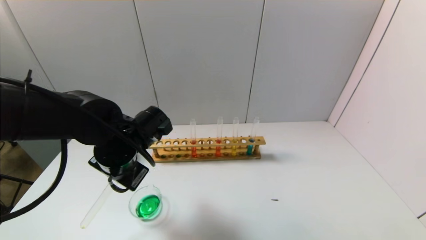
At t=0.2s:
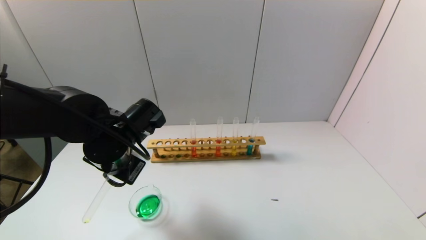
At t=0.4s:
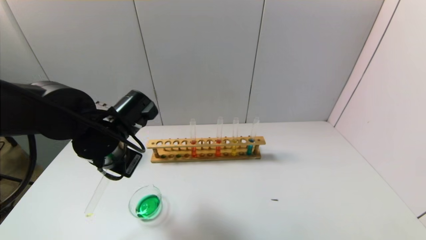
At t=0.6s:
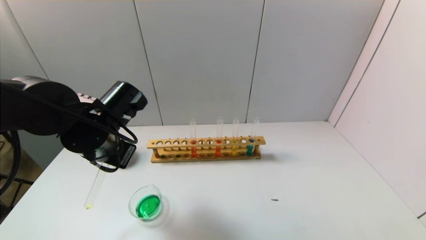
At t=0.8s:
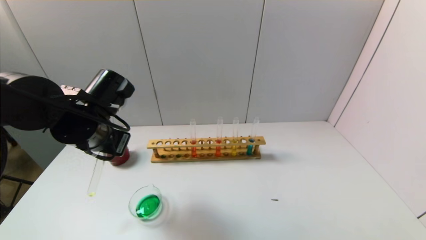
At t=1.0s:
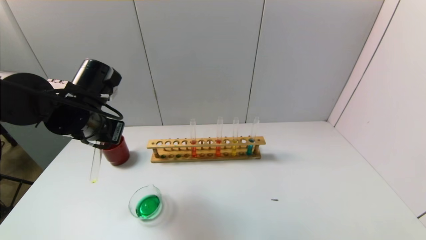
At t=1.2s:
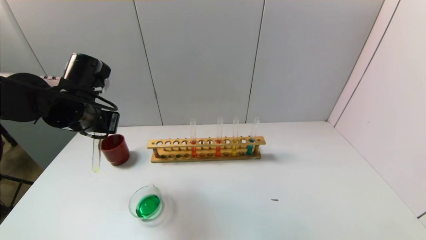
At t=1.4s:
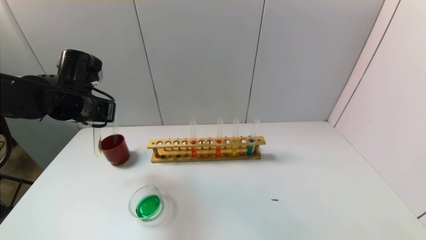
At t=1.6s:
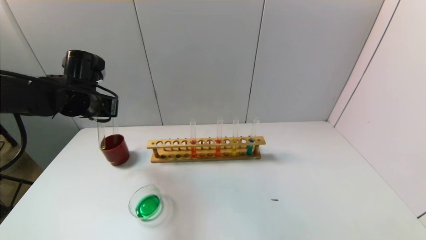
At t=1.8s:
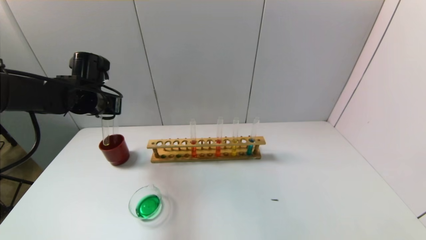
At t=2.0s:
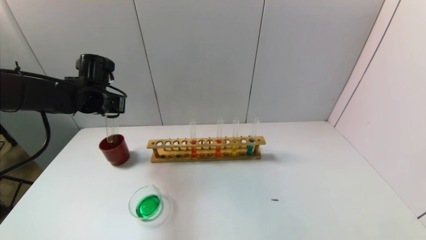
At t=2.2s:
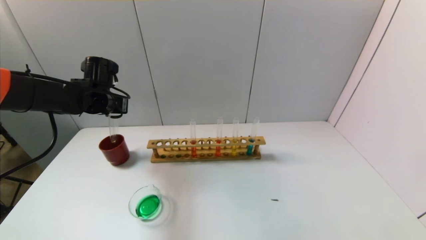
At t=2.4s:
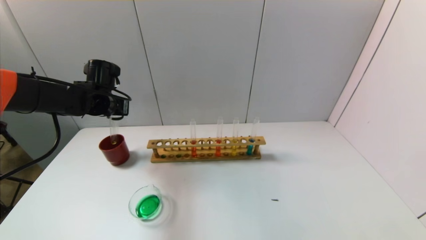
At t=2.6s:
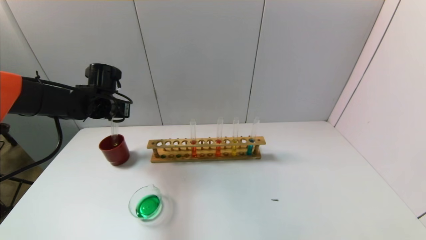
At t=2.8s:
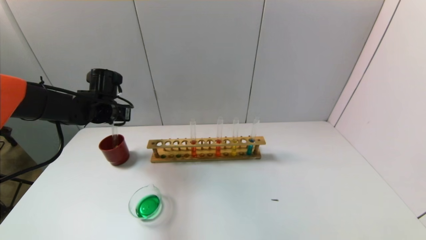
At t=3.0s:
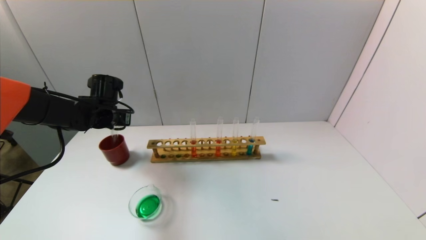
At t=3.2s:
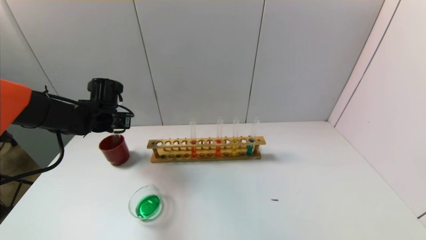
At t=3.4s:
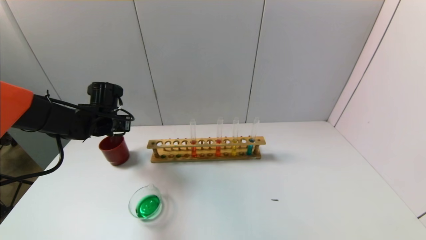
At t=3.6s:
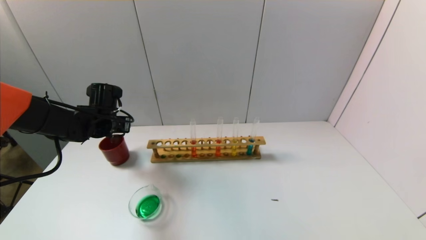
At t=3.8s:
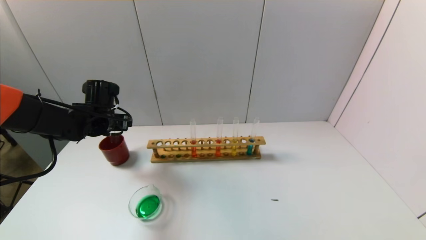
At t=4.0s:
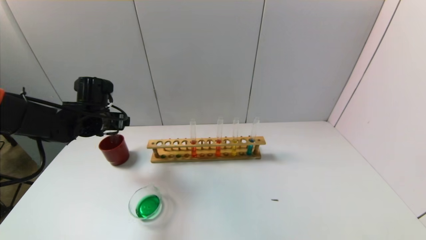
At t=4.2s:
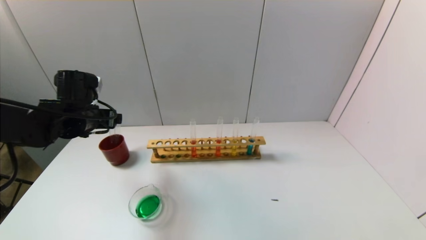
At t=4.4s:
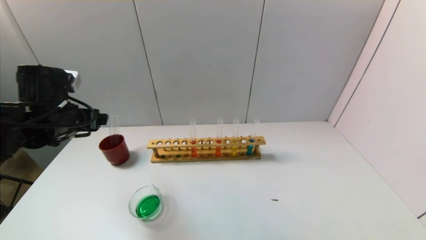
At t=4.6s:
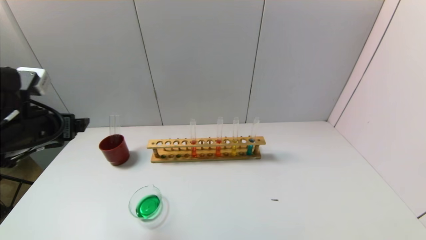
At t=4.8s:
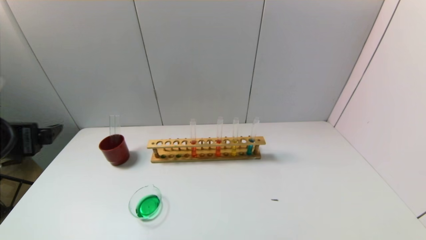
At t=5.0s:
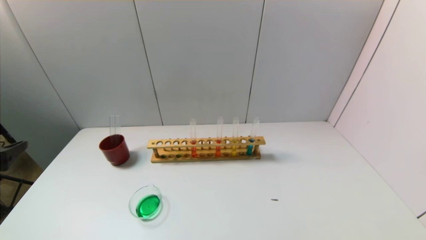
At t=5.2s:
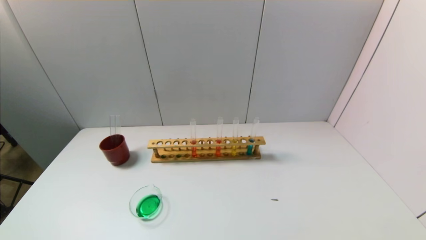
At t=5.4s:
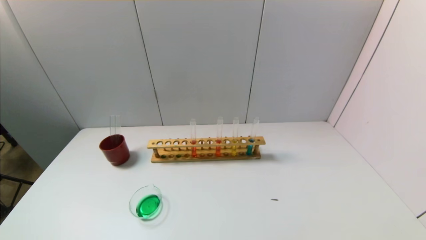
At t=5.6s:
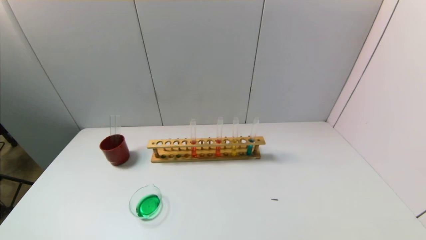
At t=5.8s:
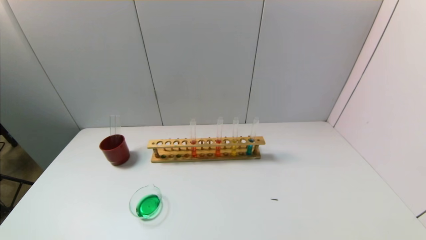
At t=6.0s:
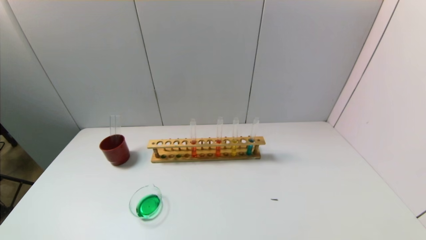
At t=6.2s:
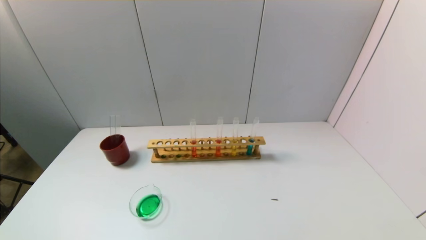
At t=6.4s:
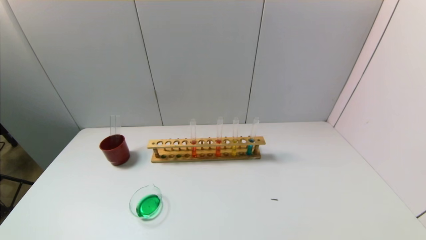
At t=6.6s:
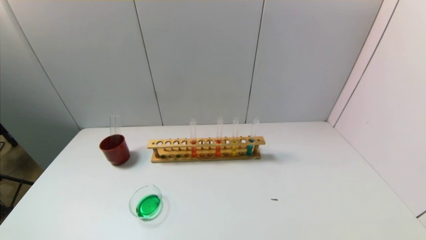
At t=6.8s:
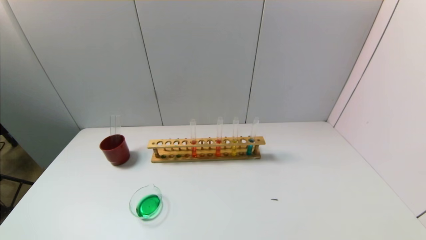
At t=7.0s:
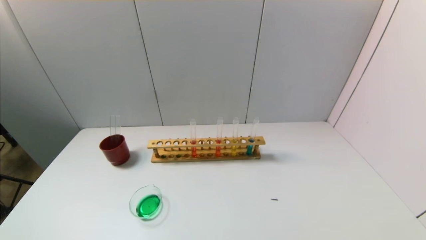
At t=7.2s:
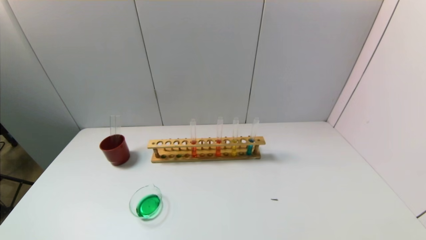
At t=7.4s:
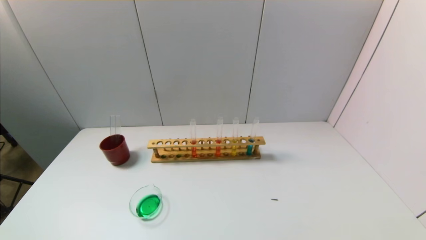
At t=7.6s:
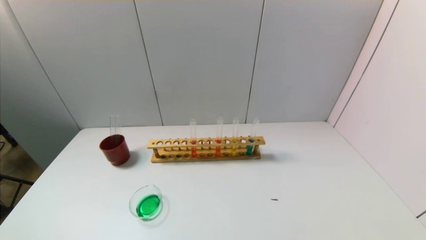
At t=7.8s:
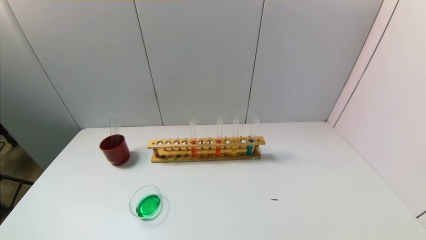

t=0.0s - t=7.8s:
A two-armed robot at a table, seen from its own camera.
Task of the whole recording: pick up the test tube with yellow pigment and the test tube with blue pigment by grippers and pour them into the beaker.
Step, t=0.0s - t=3.6s: Place the test tube into the brown cup with the left gripper.
t=0.0s - t=1.6s: The left gripper is displaced to the left, forward and upward by some 15 cm.
t=1.6s - t=3.2s: The left gripper heads downward, covering some 5 cm.
t=3.2s - t=4.6s: The left gripper goes approximately 20 cm backward and upward, and opens up.
t=4.6s - t=6.2s: The left gripper is displaced backward and downward by roughly 30 cm.
